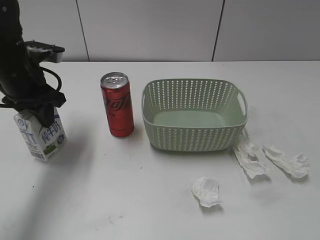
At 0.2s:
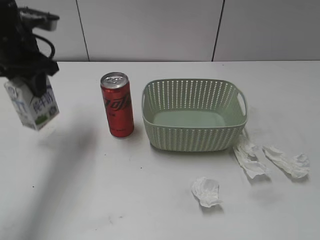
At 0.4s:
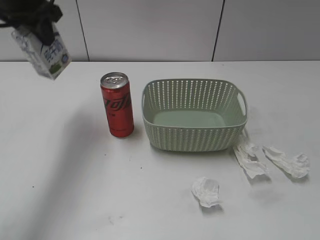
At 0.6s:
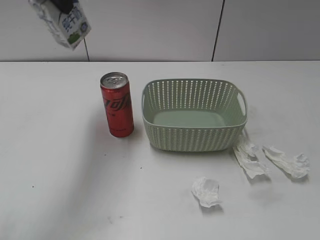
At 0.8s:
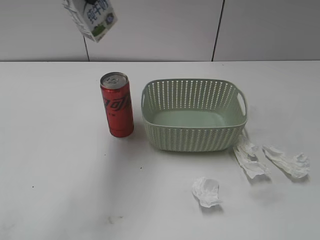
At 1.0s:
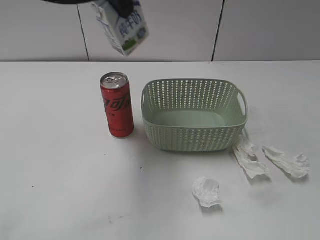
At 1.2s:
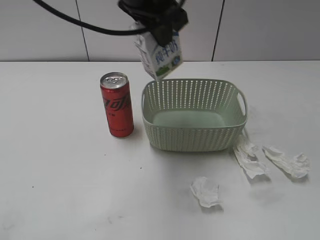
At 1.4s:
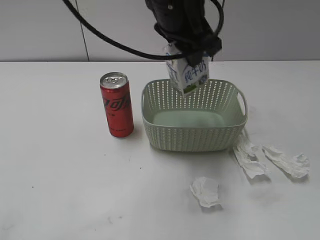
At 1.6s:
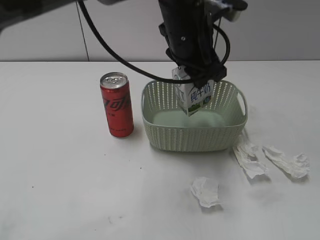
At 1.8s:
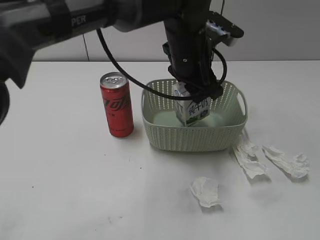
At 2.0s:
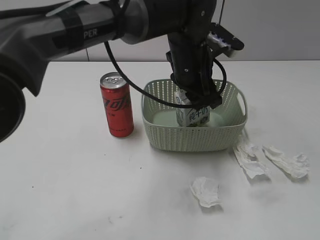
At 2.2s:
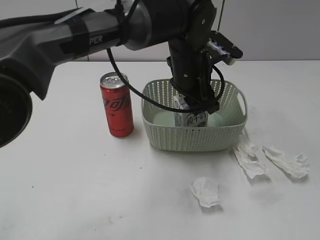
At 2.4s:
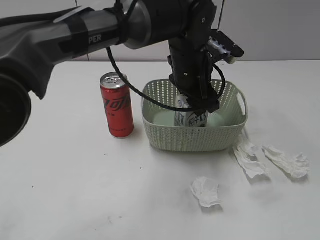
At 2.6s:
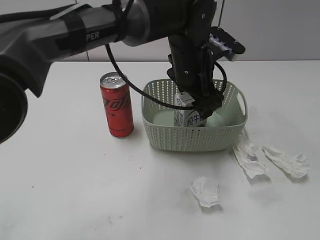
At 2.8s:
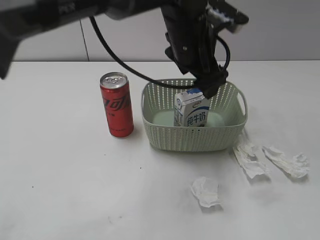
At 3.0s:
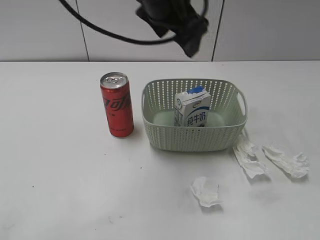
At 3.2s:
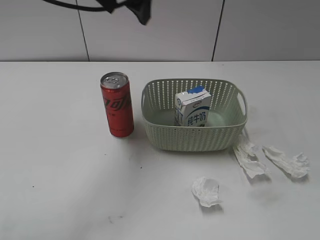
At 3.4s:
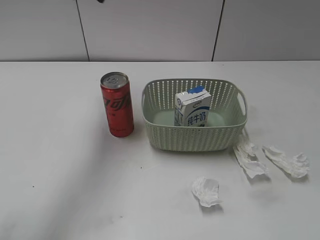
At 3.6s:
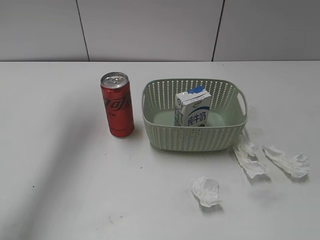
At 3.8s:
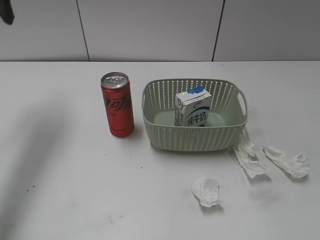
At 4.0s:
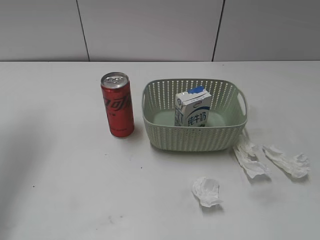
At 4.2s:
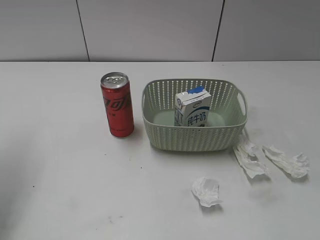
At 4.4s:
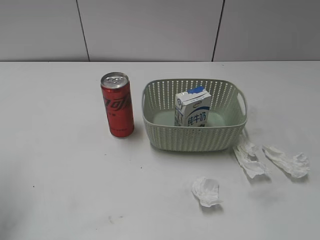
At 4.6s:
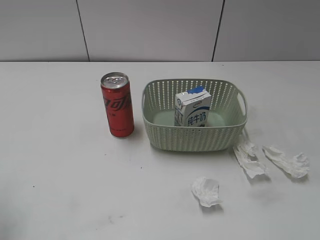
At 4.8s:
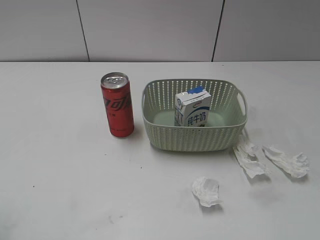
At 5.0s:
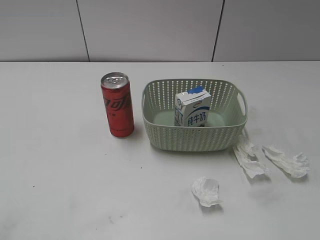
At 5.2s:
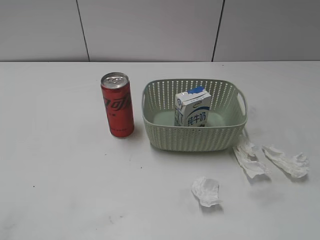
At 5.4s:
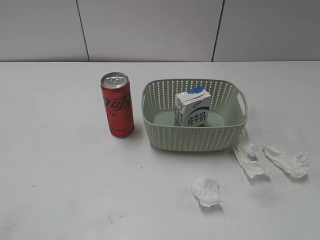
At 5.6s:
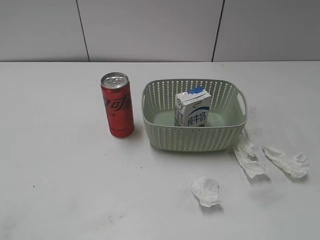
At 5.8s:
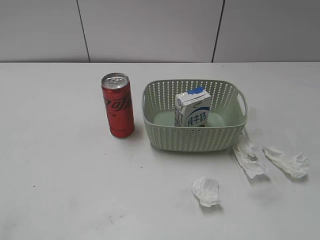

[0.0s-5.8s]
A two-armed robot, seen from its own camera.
Step, 0.0s to 2.8s: Place the milk in the basket with left gripper.
0.0s to 1.4s: The left gripper travels to the right and upward by about 25 cm.
1.4s to 2.8s: The left gripper goes some 5 cm downward, and opens.
2.8s to 4.4s: The left gripper moves to the left, roughly 40 cm.
4.4s to 5.8s: The left gripper heads backward, covering roughly 25 cm.
